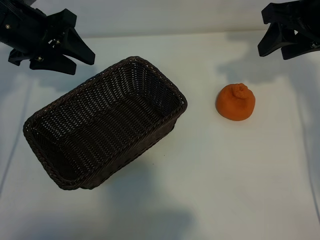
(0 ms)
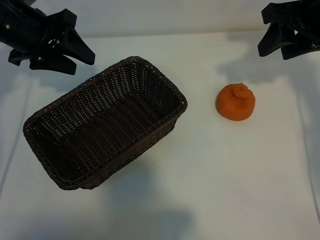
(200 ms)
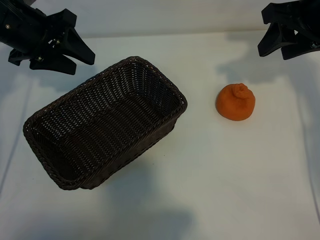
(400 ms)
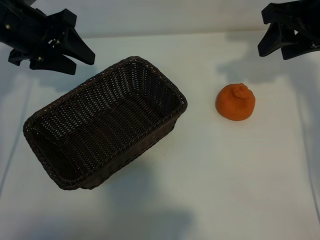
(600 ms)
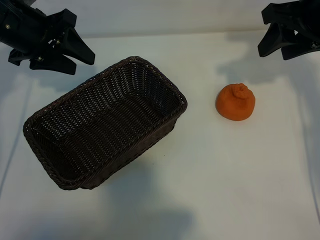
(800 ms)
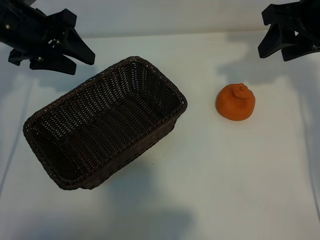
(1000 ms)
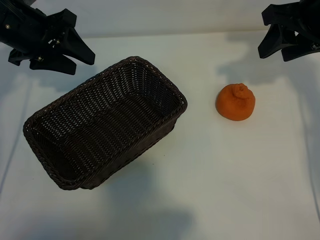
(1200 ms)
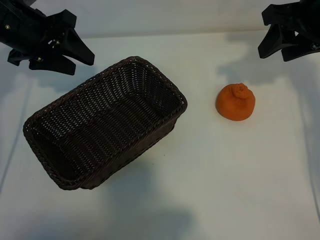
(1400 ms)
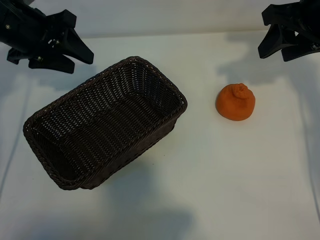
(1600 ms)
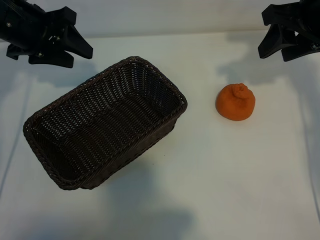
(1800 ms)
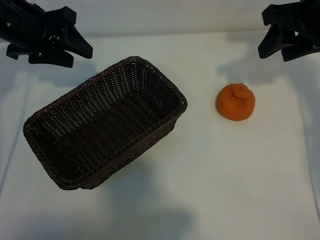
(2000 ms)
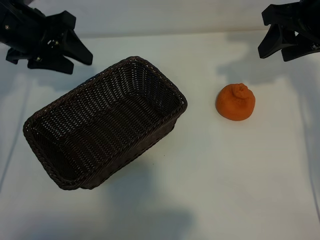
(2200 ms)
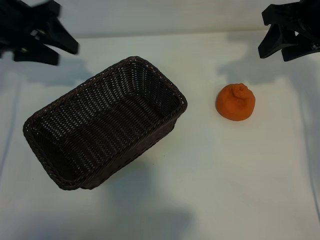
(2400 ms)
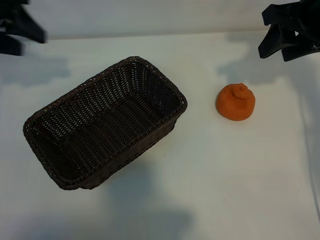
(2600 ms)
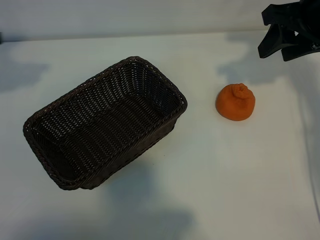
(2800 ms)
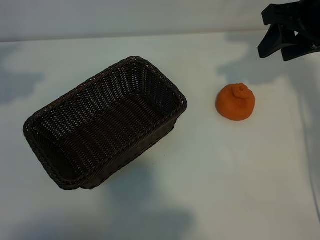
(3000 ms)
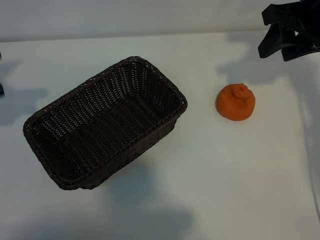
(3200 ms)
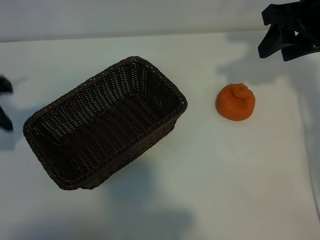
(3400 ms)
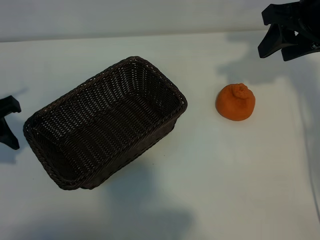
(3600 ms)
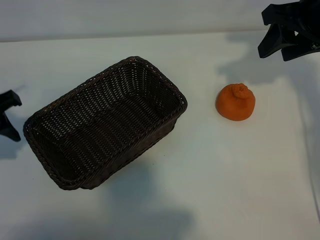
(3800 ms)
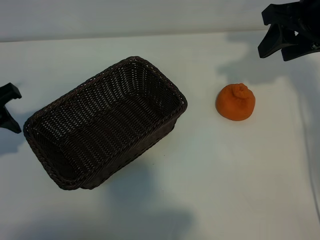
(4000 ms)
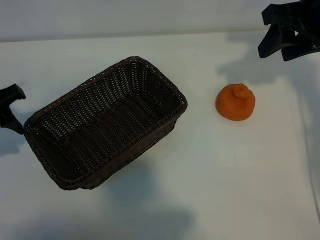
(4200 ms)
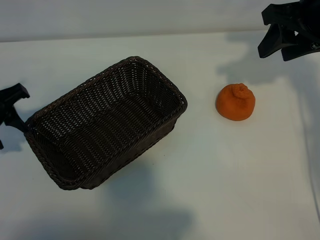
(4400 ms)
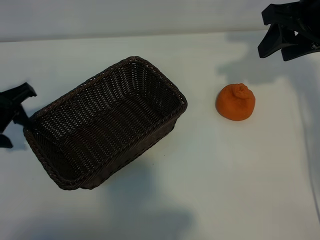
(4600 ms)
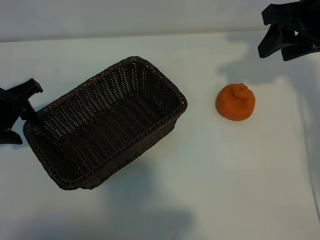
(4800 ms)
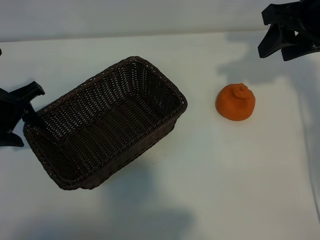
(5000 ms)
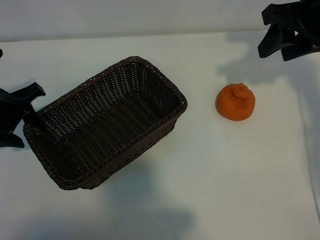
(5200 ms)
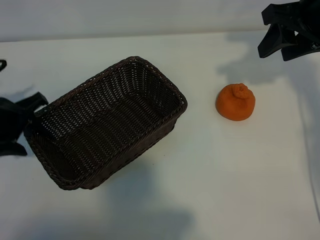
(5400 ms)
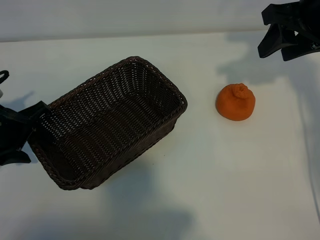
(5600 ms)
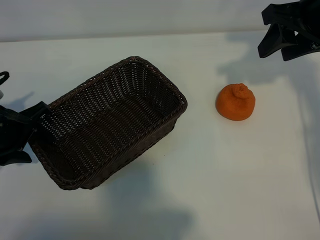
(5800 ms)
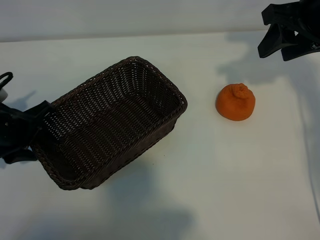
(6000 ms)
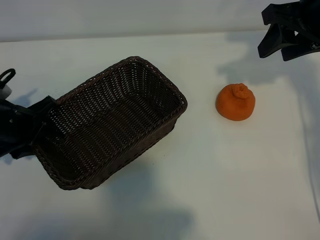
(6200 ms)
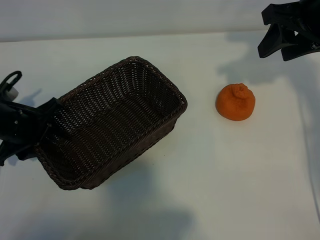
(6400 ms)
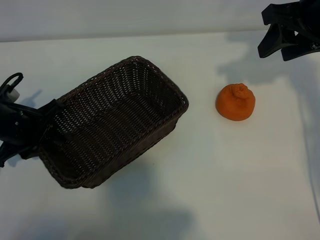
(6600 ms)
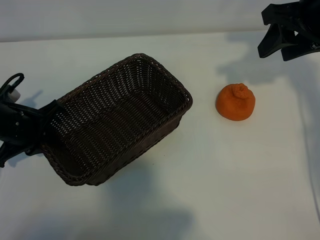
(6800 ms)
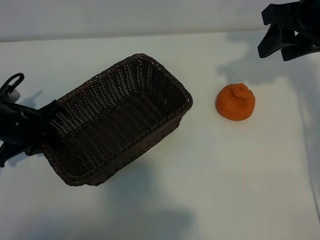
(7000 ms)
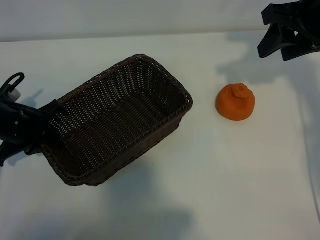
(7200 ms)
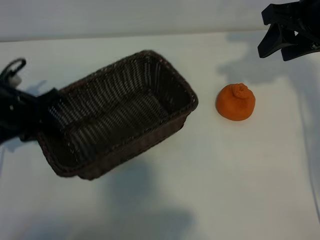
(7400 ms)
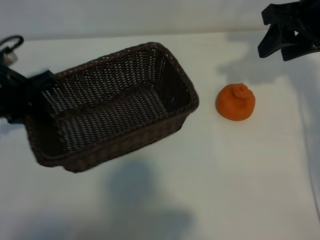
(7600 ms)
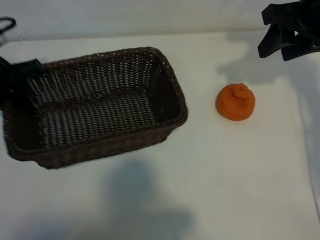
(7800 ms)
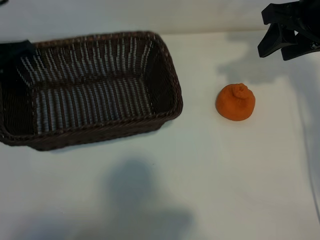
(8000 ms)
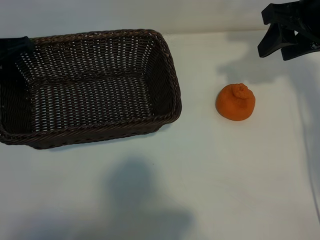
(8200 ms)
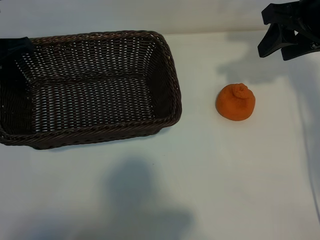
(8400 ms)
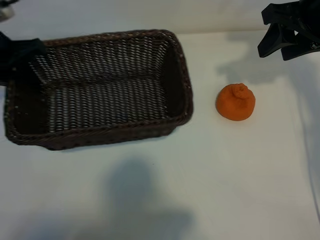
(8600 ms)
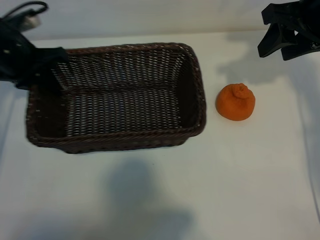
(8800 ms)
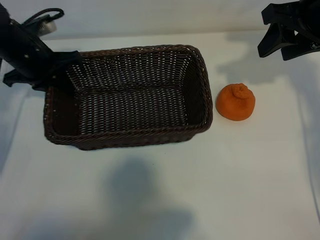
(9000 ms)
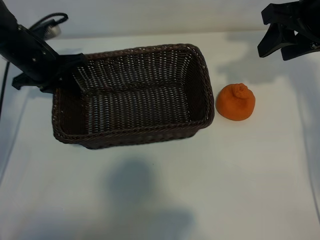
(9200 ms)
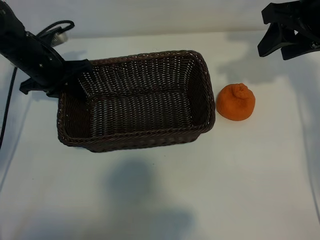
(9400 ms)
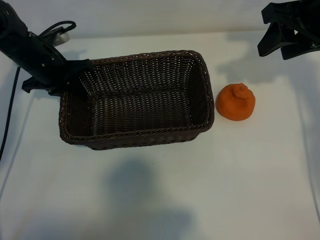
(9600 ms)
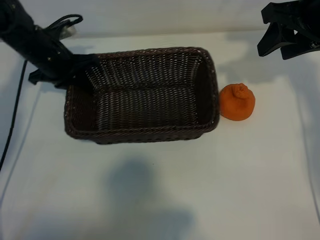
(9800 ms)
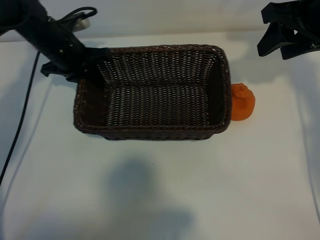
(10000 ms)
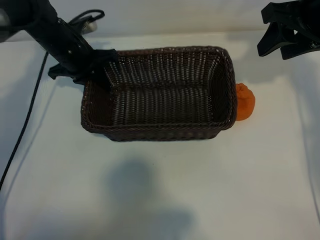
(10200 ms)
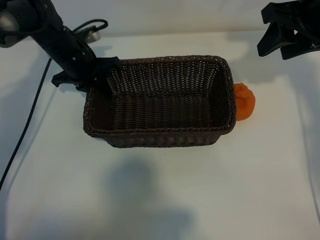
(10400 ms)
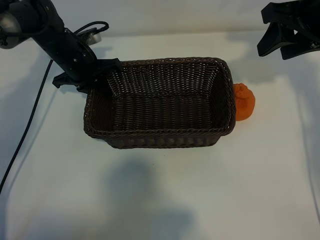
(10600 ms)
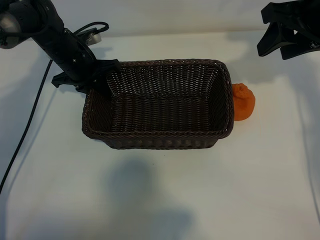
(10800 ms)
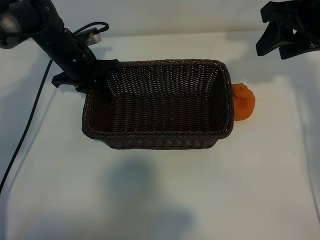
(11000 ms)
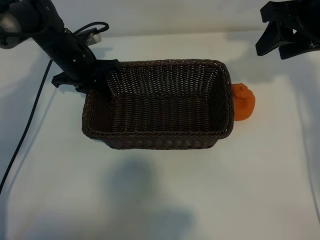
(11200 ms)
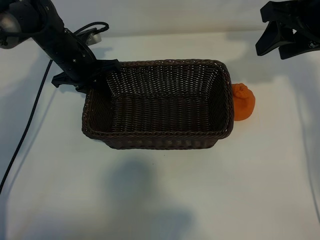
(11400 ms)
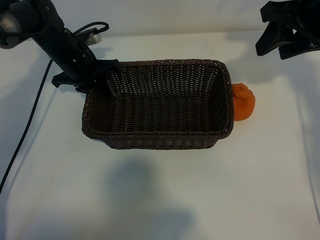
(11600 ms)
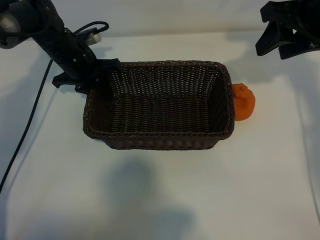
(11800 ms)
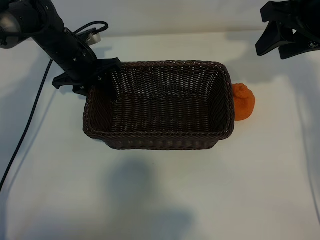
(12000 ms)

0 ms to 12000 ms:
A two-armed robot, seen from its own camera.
Task of the whole recording: pick up the orange and put it into the basket.
Step, 800 ms to 6600 ms: Grasp the basket with left gripper.
Step, 7000 ms to 11800 ms: Place the basket in the center of view with left gripper.

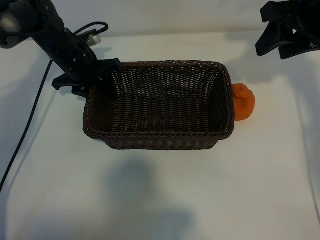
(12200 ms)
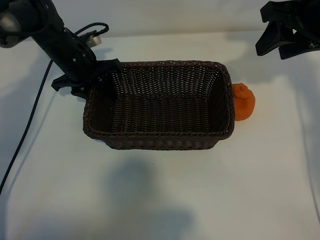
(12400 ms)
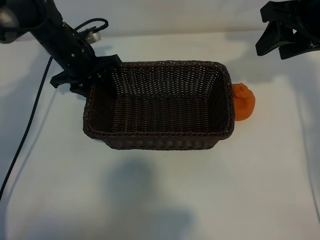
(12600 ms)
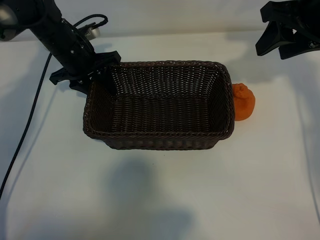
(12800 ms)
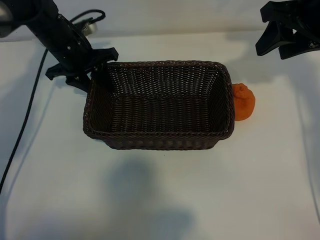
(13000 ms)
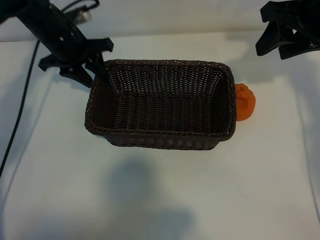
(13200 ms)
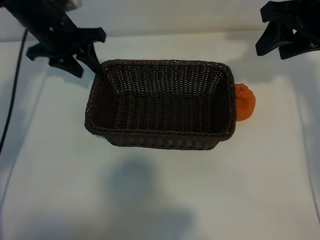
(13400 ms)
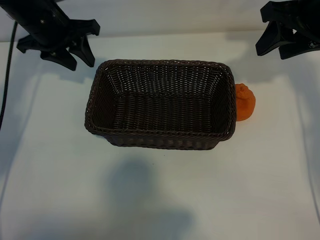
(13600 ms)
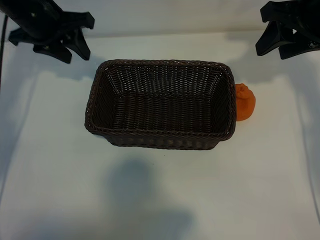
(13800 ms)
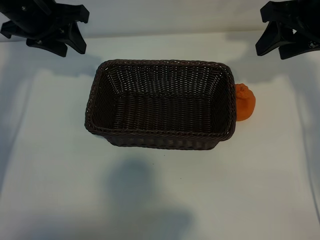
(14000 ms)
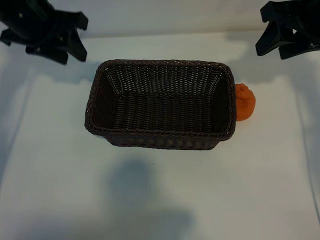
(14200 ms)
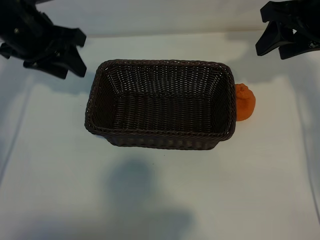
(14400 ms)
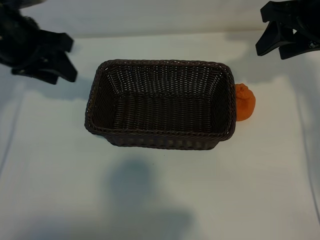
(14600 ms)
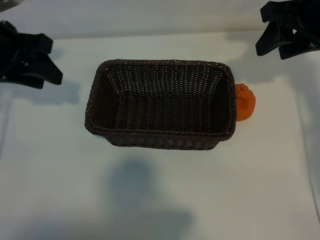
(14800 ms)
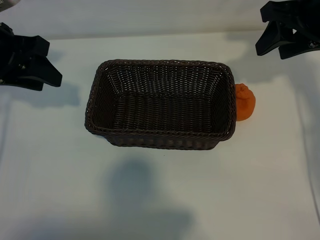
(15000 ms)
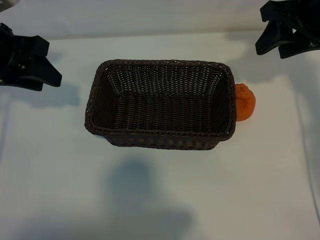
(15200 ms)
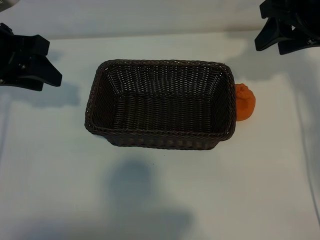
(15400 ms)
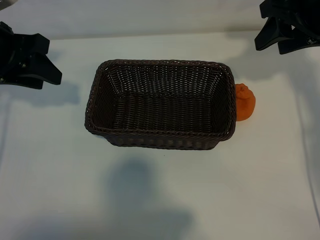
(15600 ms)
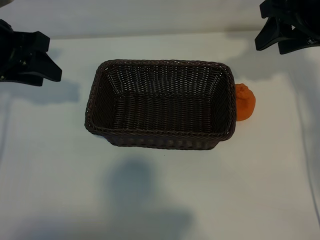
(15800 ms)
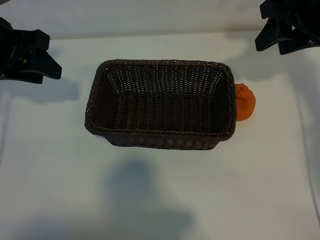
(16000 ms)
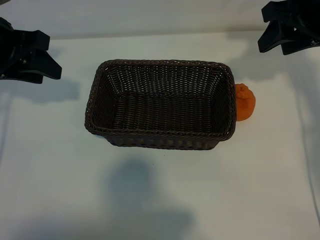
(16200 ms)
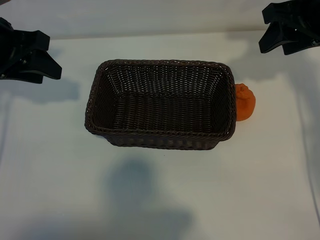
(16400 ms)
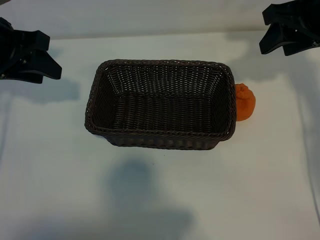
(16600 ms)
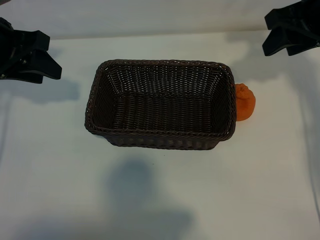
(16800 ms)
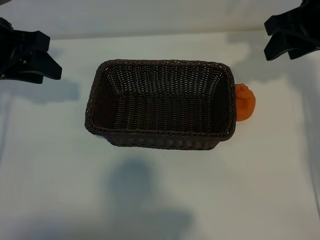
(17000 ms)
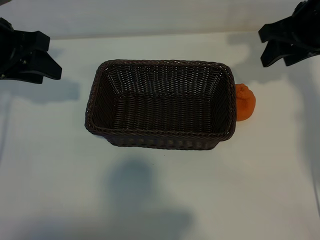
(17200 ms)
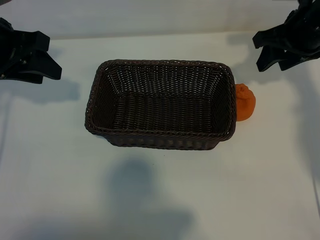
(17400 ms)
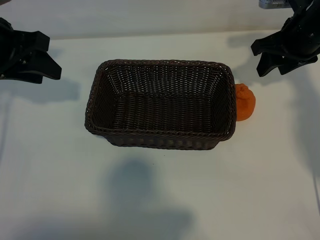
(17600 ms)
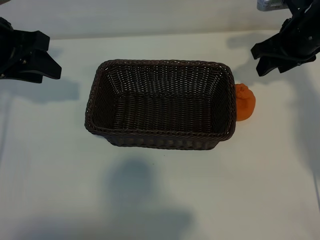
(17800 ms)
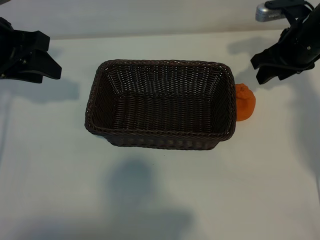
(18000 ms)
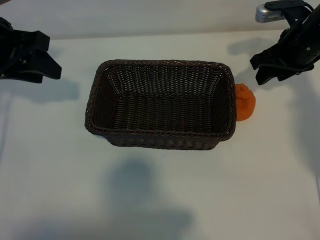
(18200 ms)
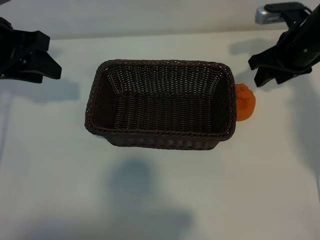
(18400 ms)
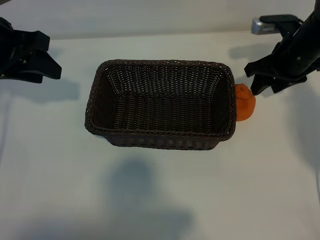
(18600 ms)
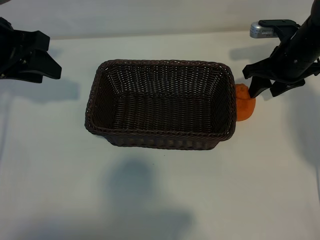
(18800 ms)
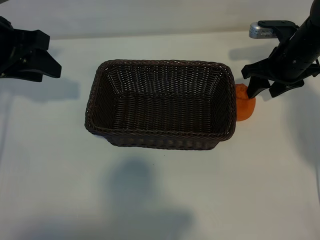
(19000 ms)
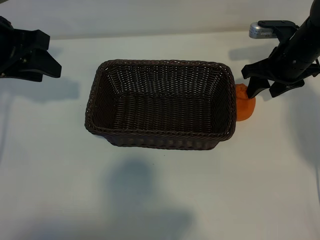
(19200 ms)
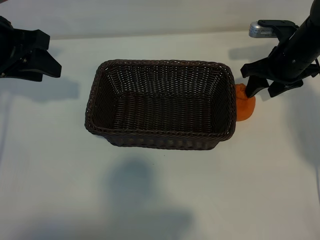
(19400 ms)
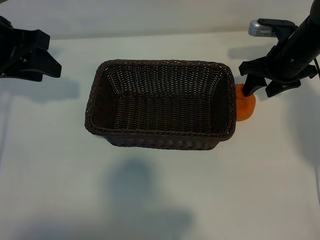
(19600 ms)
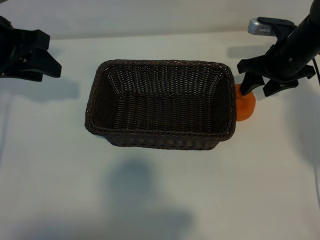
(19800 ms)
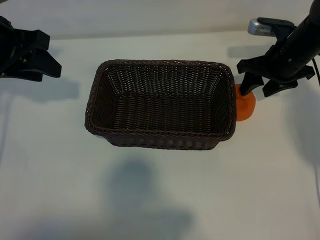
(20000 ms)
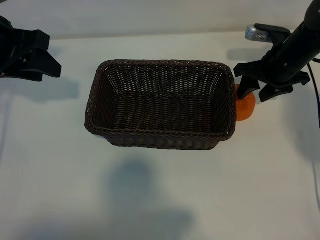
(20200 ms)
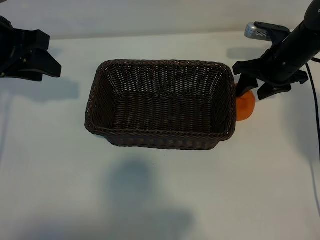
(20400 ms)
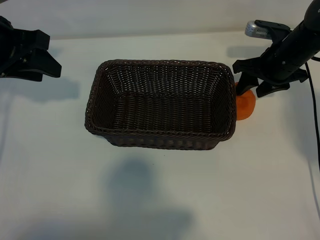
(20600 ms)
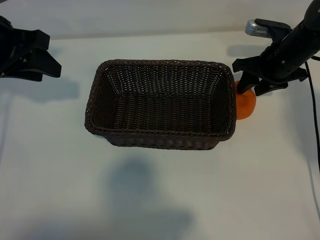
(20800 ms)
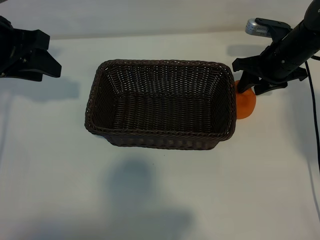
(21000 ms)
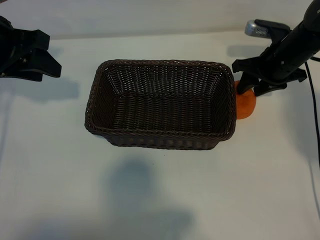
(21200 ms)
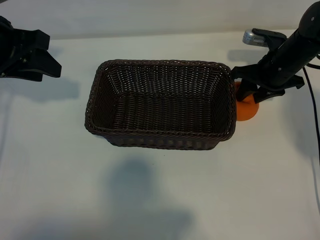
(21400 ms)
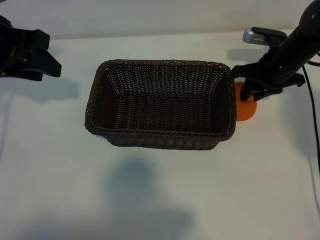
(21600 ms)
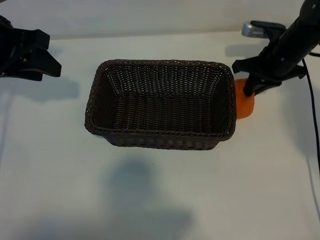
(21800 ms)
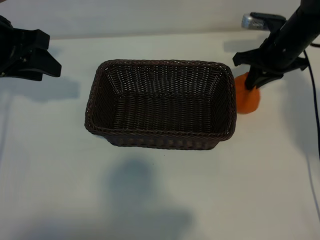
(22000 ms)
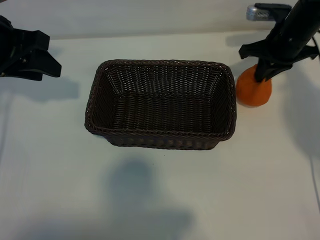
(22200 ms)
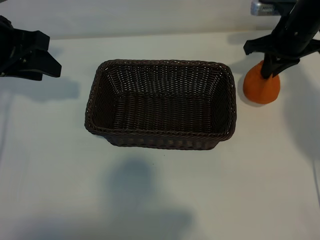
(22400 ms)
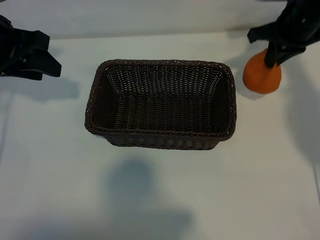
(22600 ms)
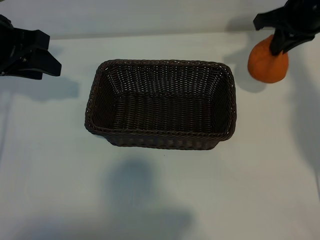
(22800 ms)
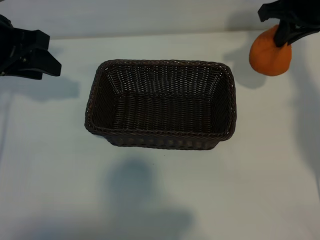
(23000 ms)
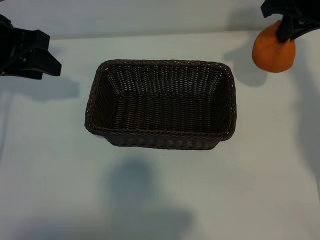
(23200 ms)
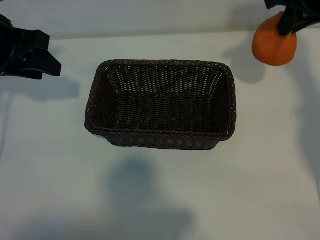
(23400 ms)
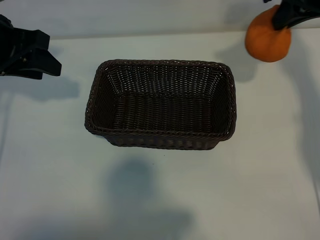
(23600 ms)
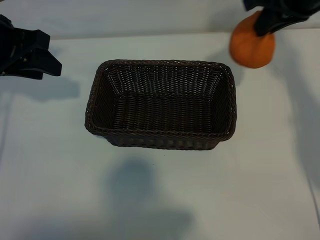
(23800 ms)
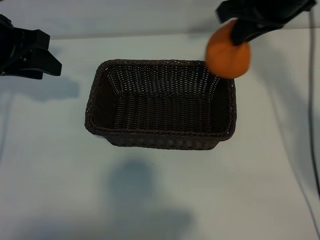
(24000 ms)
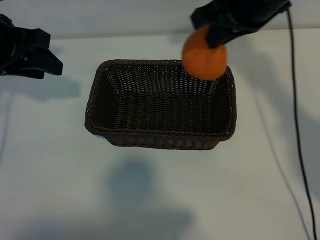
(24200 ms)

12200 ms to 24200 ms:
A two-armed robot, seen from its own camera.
Task of the whole recording: pick up the orange and put it into the basket.
Step, 12200 ms to 21600 ms: Grasp the orange with right gripper.
